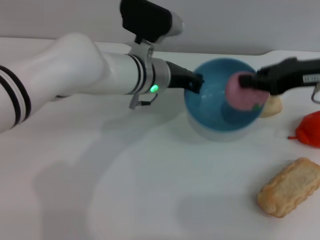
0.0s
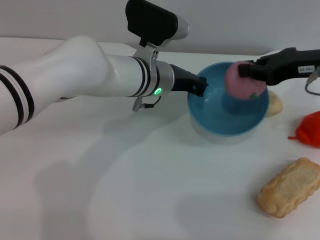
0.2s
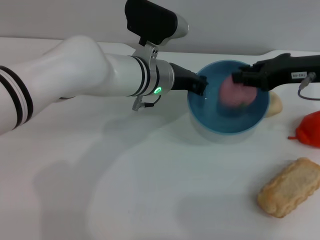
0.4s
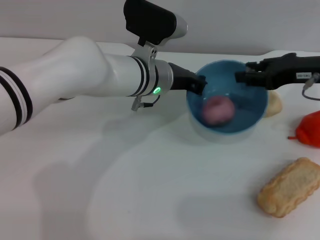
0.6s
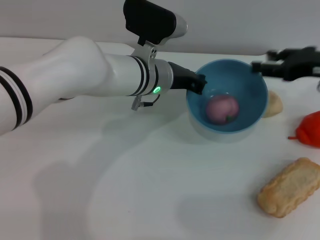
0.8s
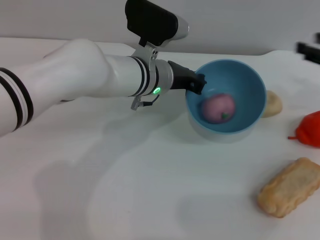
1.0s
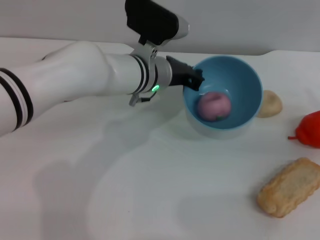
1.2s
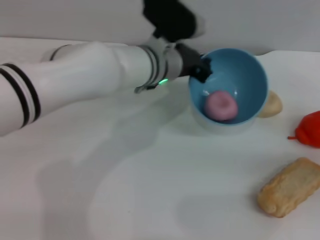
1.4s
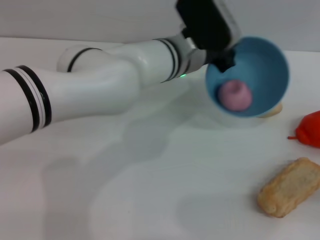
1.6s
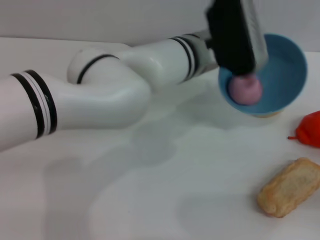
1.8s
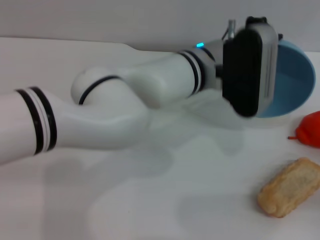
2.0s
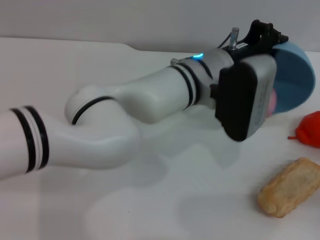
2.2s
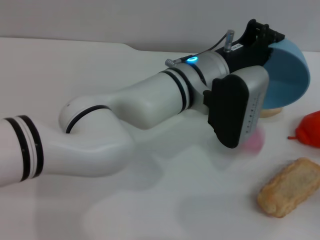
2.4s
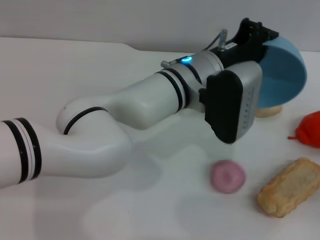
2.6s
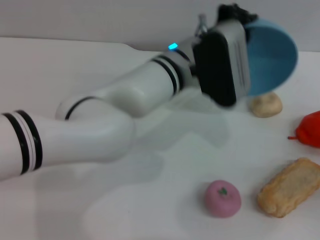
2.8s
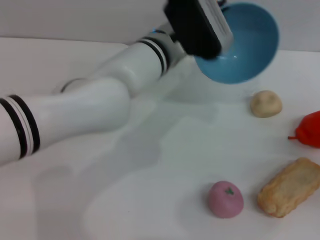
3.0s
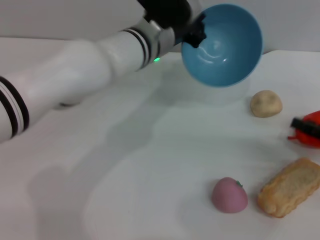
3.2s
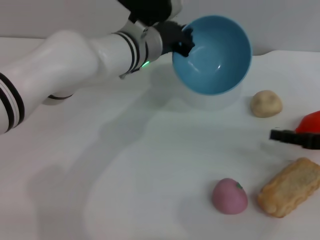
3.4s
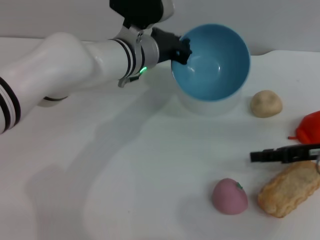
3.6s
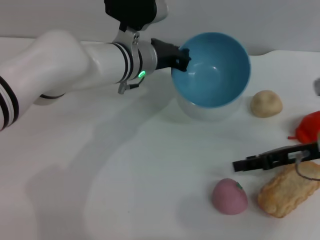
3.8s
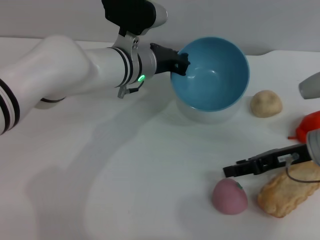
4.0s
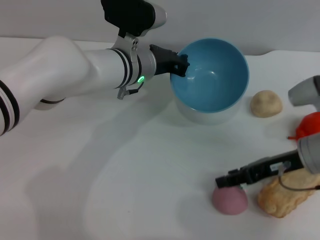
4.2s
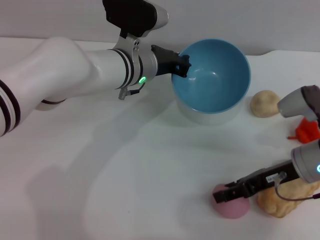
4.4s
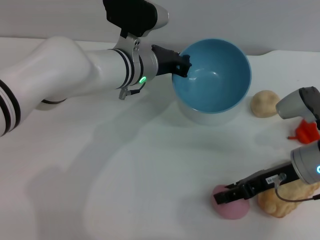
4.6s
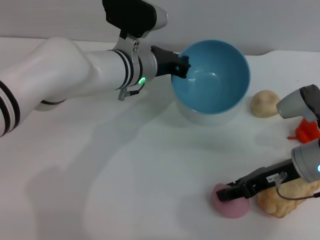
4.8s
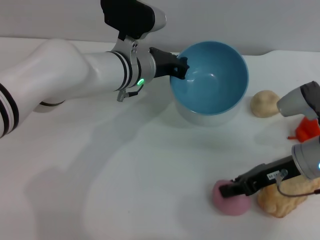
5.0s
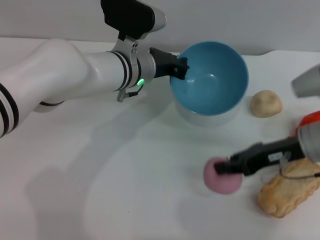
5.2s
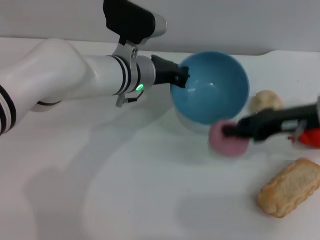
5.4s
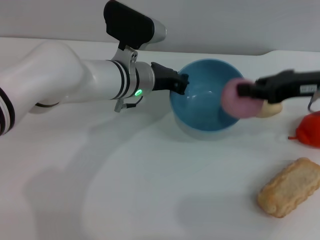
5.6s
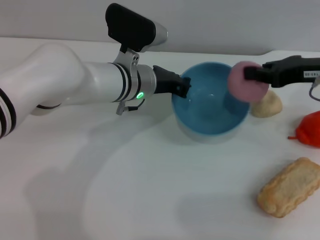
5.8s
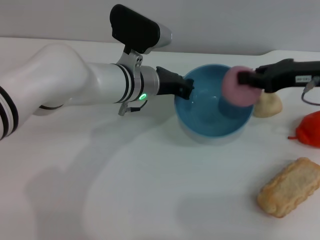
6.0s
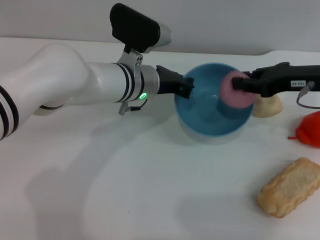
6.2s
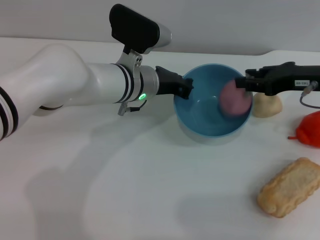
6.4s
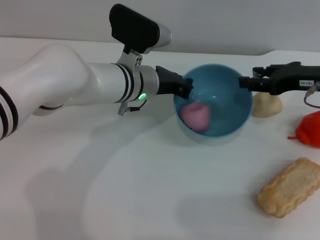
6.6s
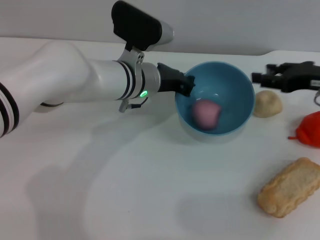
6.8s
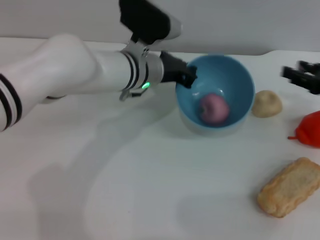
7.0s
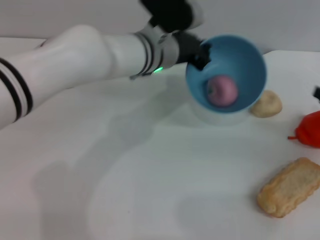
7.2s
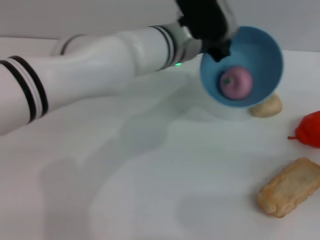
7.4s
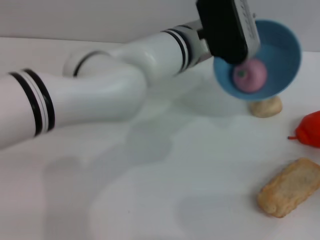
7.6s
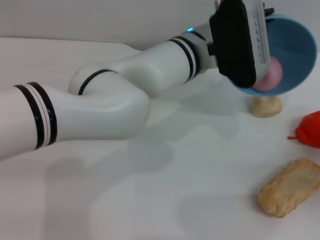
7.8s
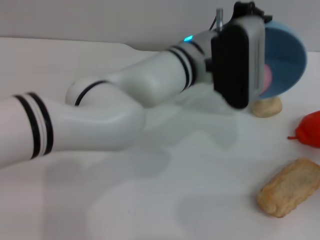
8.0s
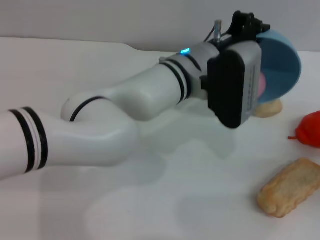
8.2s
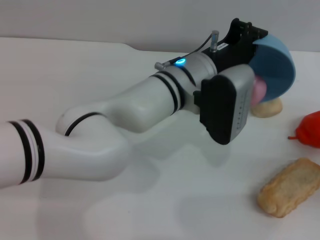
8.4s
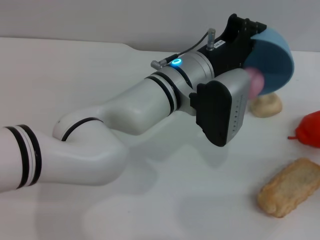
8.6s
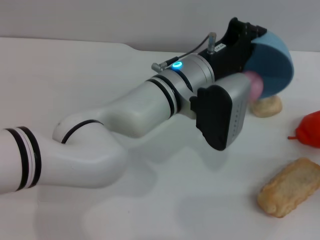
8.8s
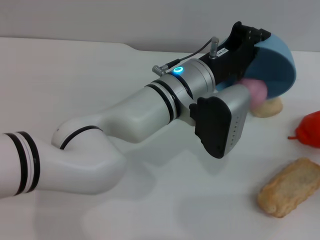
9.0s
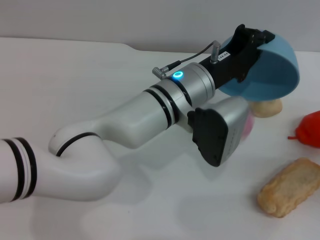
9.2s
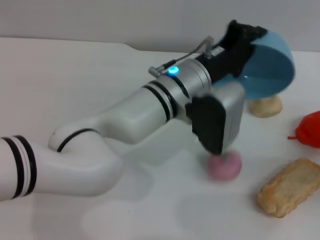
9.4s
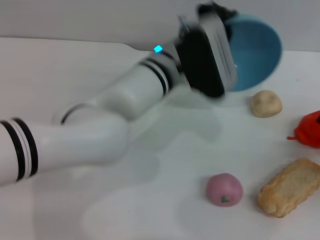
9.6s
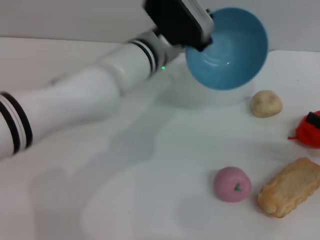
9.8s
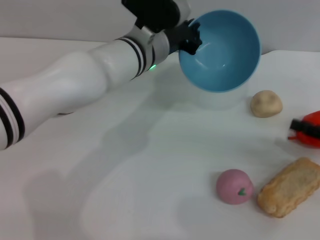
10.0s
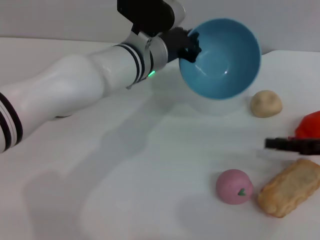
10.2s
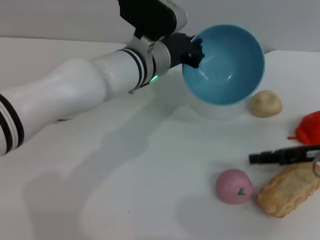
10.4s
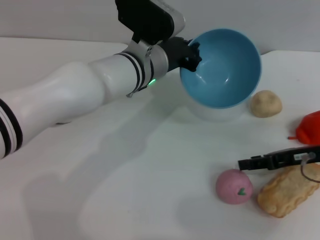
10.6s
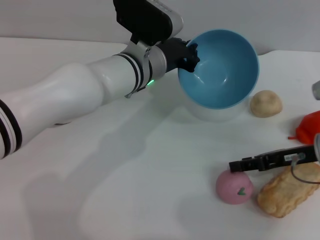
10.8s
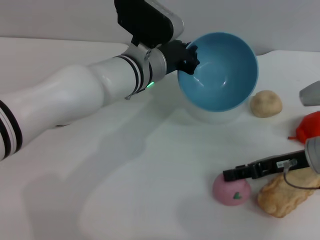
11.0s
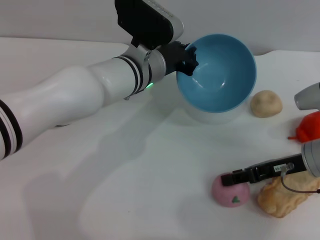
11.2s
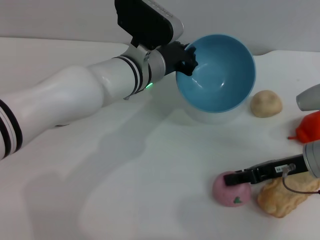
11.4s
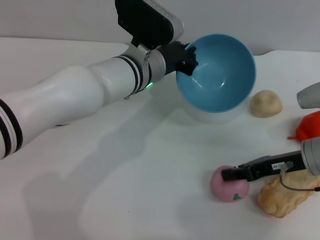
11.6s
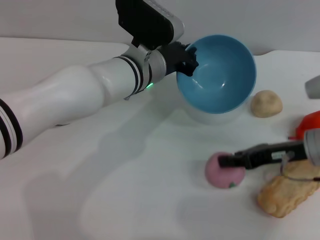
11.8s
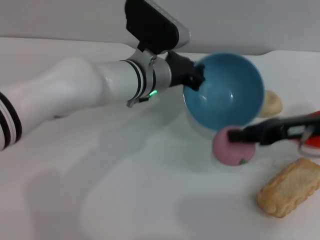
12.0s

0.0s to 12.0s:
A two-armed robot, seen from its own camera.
Task of the whole recording: put the peach into the blue bowl and pour it out repeatedly.
Step, 0.0s to 0.8s: Place the peach into the bowl.
Step, 1.0s to 2.8s: Pour the peach out of bowl.
Step, 3.0s to 5.0s: Pick up the peach with the right gripper.
Step, 5.4s to 6.6s: Place the peach into the bowl.
Step, 7.0s to 9.6s: Pour the peach out of bowl.
Step, 9.8s to 12.0s: Pick up the peach with the right gripper.
0.0s to 1.6s: The right gripper travels downward, to the right and backward by about 25 cm, and opens up; the left gripper moves about 5 cm.
3.0s to 4.4s: The left gripper is displaced to the left by about 5 cm. Meanwhile the right gripper travels to the left and forward by about 15 cm.
4.4s to 6.0s: The right gripper moves upward and forward, approximately 10 cm, and closes up.
6.0s to 7.6s: The left gripper goes about 10 cm to the right and upward, while the right gripper shifts approximately 25 cm downward, to the right and backward, and opens its fingers.
7.6s to 9.0s: The left gripper moves backward, some 5 cm.
9.0s to 10.4s: The right gripper heads to the left, forward and upward, covering approximately 10 cm; the left gripper shifts approximately 5 cm forward.
10.4s to 12.0s: The right gripper moves some 5 cm, and closes.

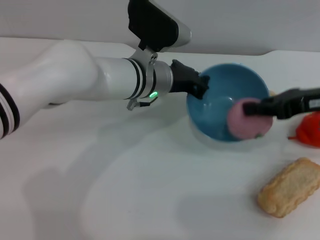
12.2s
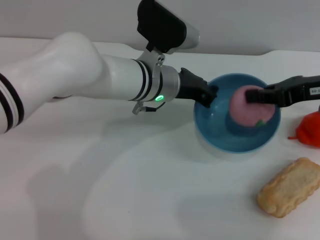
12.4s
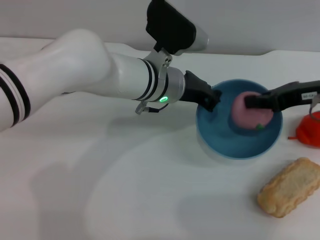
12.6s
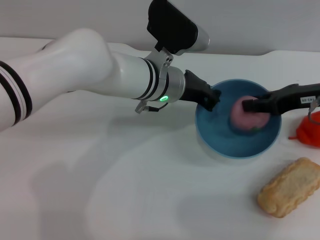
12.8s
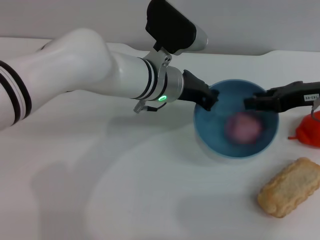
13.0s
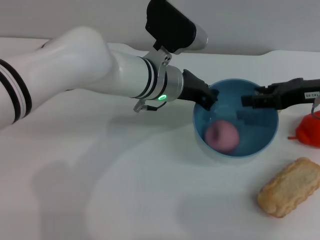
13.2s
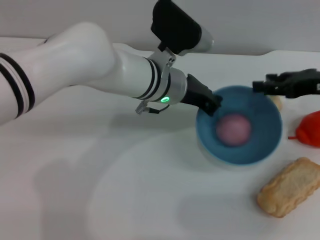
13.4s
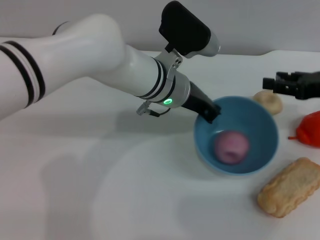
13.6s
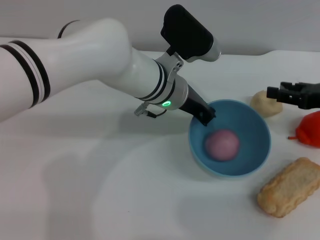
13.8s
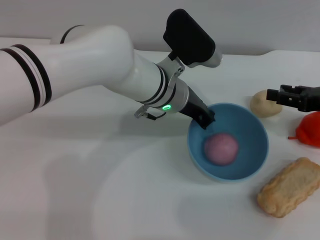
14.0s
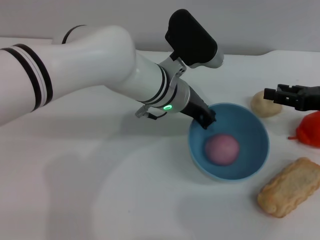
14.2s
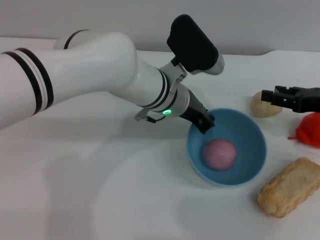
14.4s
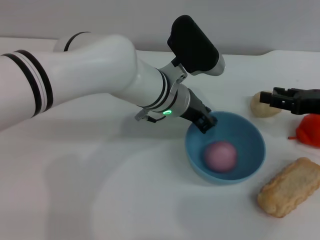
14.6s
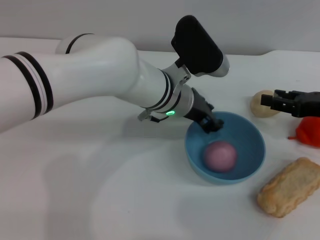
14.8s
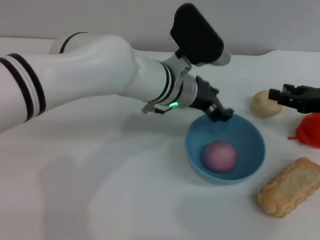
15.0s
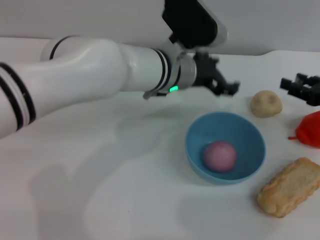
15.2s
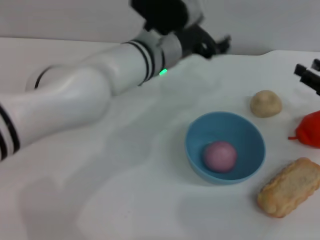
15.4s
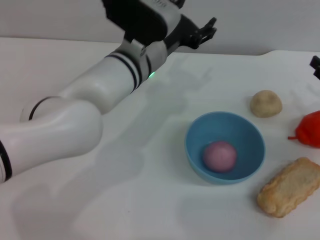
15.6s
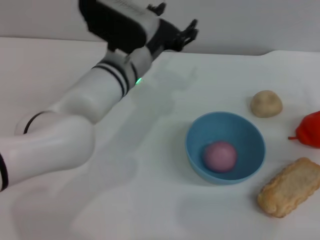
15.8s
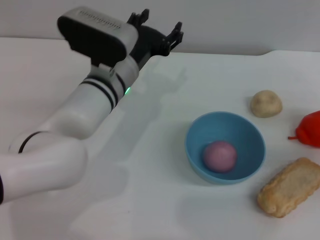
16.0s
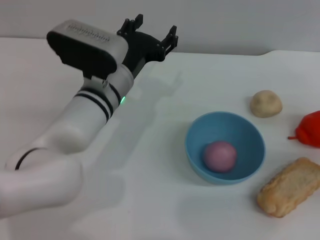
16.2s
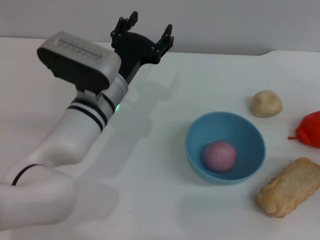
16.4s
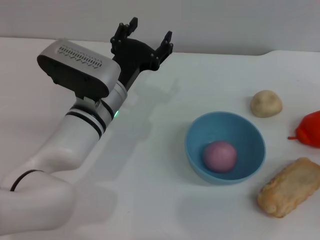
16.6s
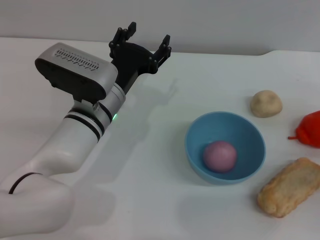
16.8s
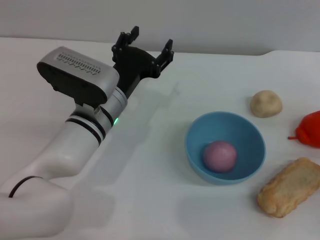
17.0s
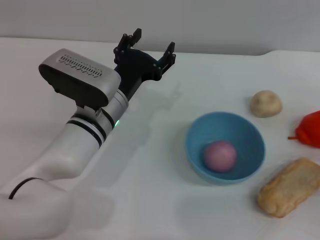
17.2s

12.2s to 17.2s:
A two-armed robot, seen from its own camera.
Task of the whole recording: put the peach into the blue bowl and pour it out repeatedly.
Step, 12.2s to 13.4s: Place the peach into the bowl.
Step, 13.6s to 15.4s: Place the bowl on the table.
12.2s to 13.8s: The right gripper changes place by some 5 cm, and opens up.
13.8s to 15.6s: The left gripper opens its fingers. The right gripper heads downward, covering some 5 cm.
15.6s to 17.2s: The right gripper heads backward, covering approximately 5 cm. Meanwhile the left gripper travels downward, backward and to the left by some 10 cm.
